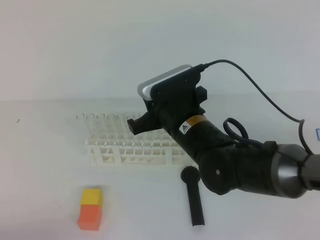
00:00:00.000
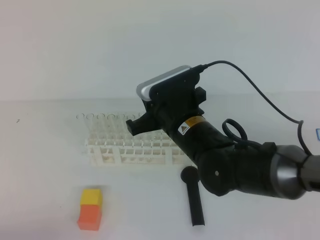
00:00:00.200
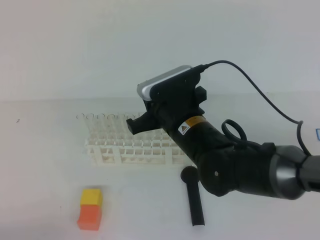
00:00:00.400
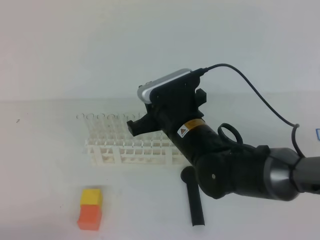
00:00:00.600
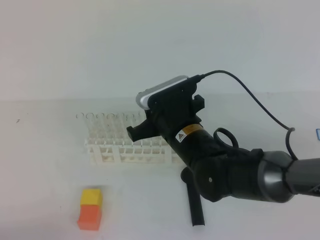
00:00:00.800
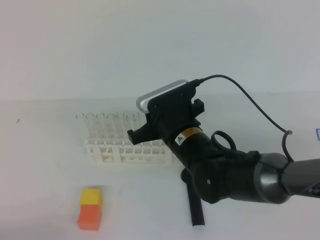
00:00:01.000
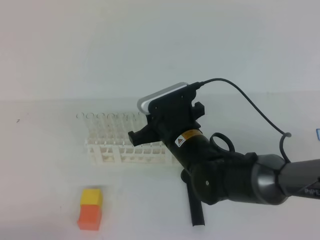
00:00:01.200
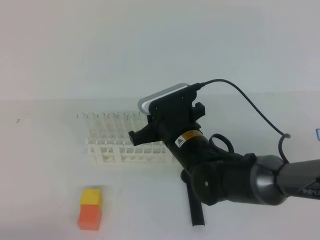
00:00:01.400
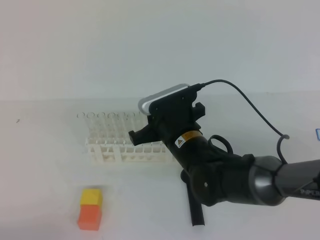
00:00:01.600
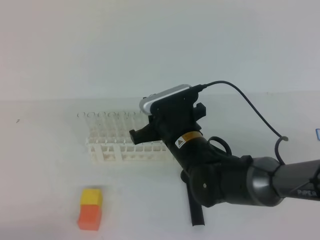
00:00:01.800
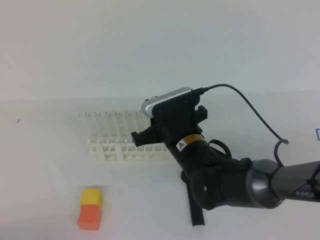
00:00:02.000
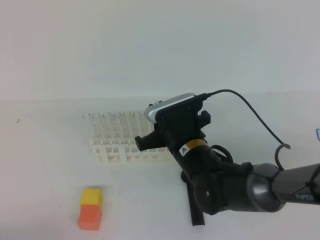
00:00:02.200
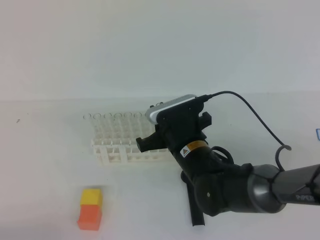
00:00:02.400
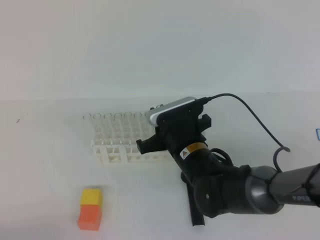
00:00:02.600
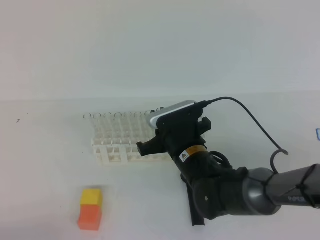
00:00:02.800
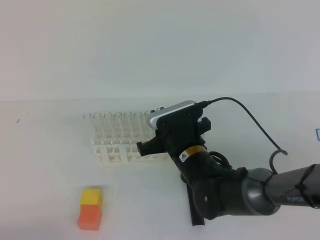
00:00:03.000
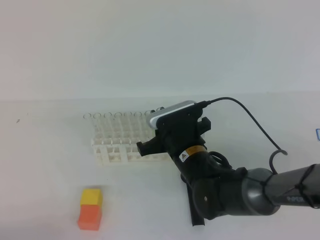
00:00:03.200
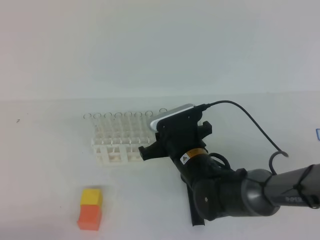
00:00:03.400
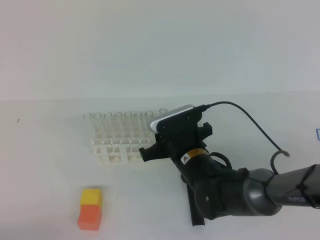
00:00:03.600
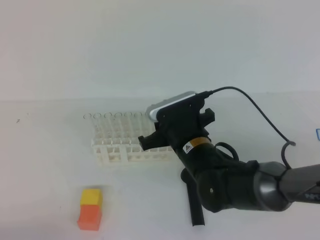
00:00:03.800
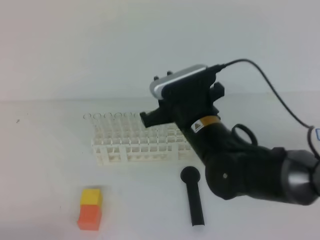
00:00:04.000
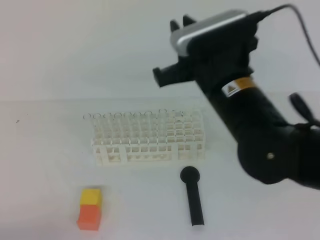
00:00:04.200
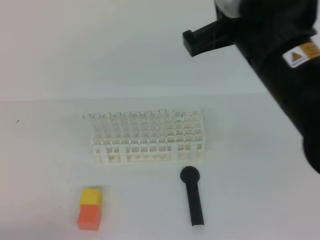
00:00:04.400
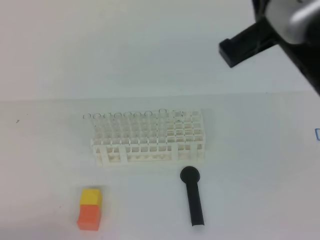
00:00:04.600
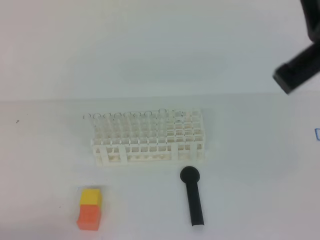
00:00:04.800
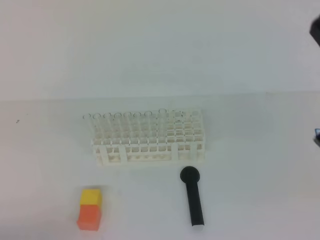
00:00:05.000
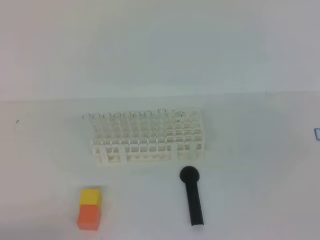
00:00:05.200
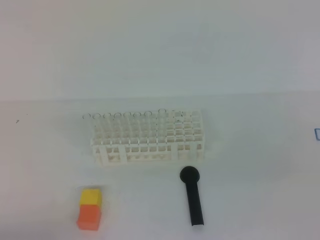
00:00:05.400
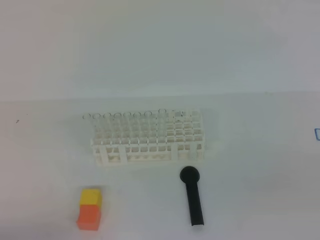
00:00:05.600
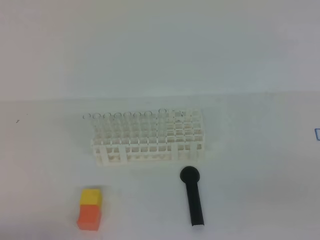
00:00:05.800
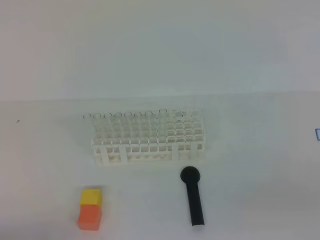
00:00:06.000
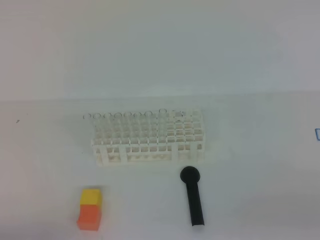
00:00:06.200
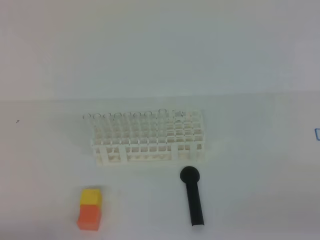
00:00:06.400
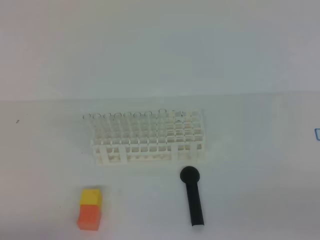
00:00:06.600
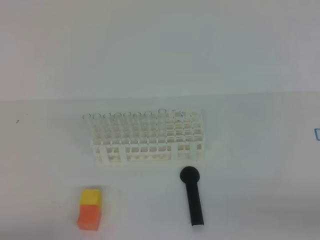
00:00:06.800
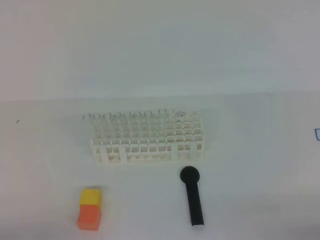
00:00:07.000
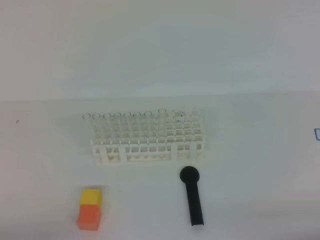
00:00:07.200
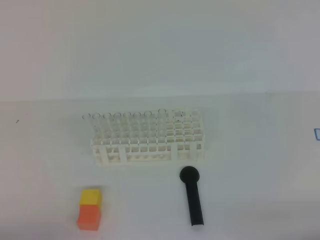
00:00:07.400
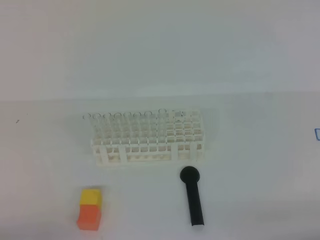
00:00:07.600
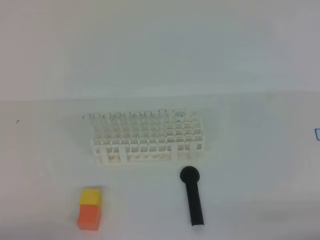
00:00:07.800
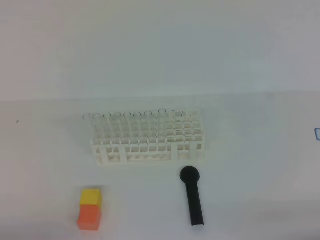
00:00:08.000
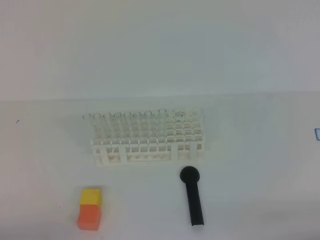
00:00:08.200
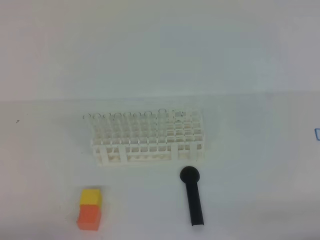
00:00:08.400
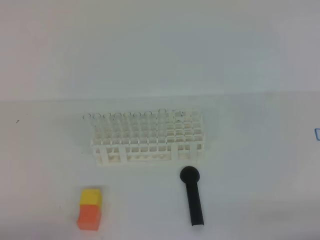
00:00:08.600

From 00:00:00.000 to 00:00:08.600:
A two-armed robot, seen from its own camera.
From 00:00:00.000 to 00:00:01.400: The grippers stay close to where they were, moving slightly.
From 00:00:01.400 to 00:00:02.800: The grippers move only a little.
From 00:00:02.800 to 00:00:04.400: The right gripper shifts about 20 cm upward.
From 00:00:04.400 to 00:00:05.800: The right gripper goes roughly 30 cm to the right, backward and downward.
From 00:00:07.200 to 00:00:08.600: The two grippers keep their place.
